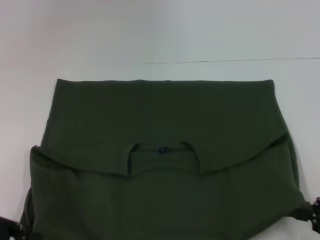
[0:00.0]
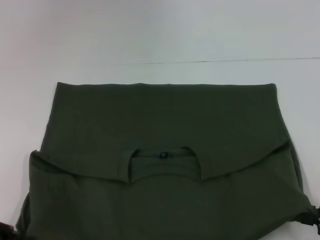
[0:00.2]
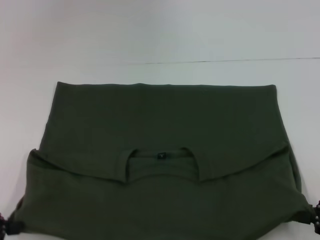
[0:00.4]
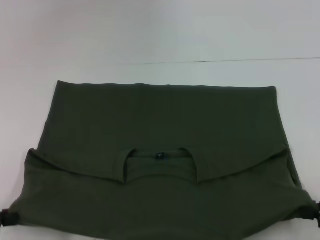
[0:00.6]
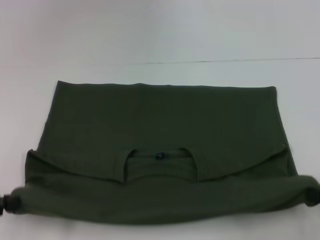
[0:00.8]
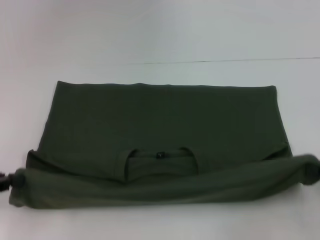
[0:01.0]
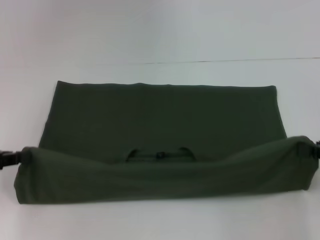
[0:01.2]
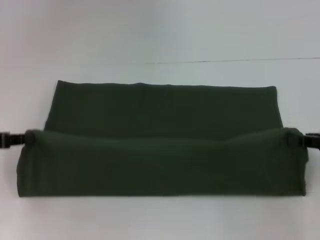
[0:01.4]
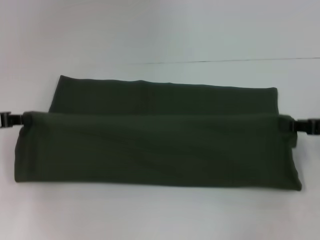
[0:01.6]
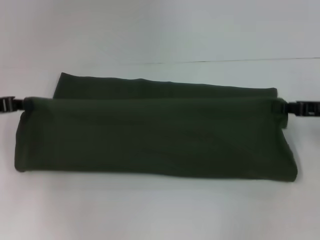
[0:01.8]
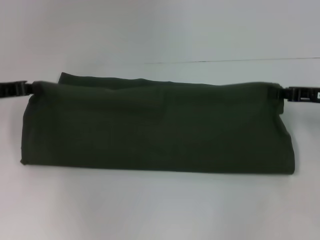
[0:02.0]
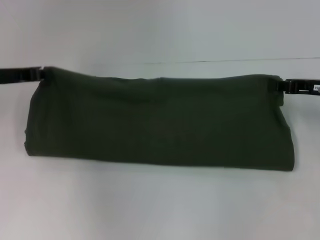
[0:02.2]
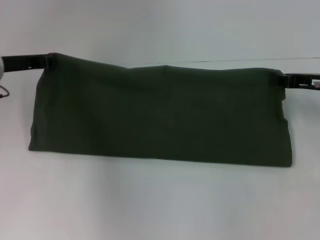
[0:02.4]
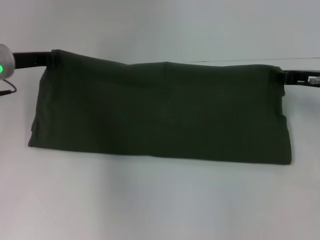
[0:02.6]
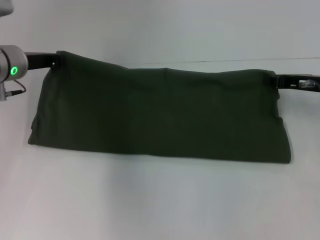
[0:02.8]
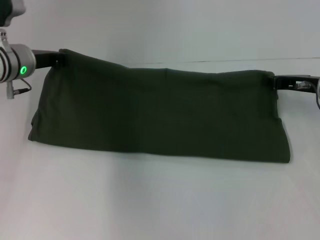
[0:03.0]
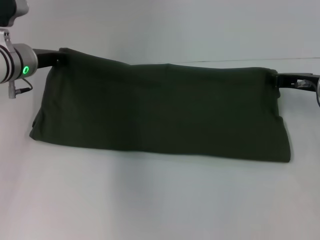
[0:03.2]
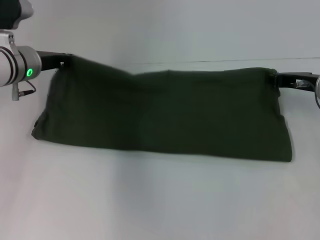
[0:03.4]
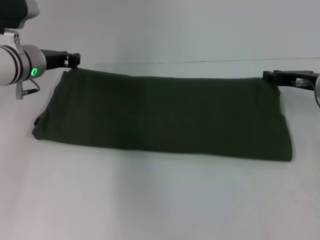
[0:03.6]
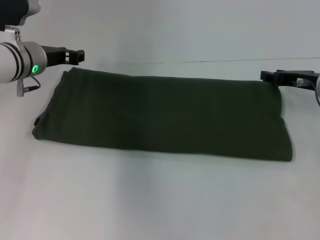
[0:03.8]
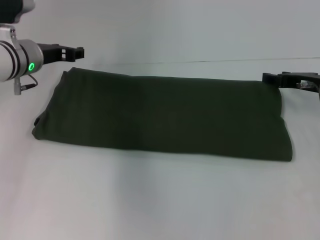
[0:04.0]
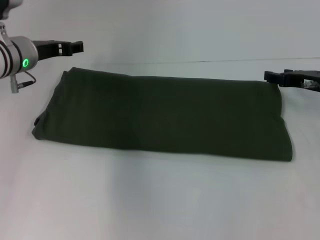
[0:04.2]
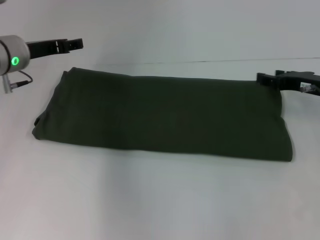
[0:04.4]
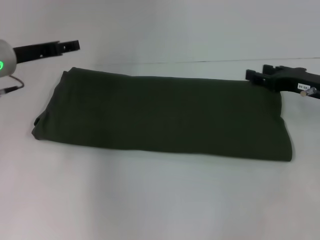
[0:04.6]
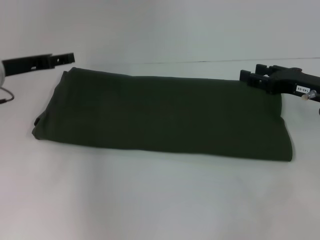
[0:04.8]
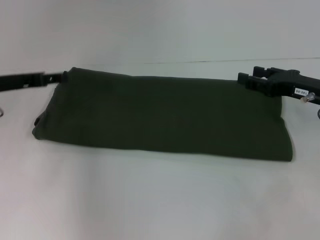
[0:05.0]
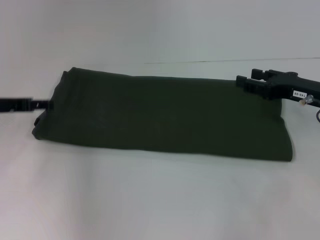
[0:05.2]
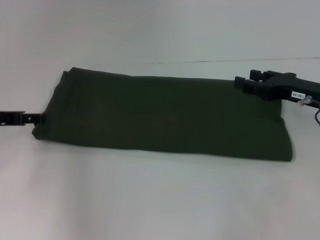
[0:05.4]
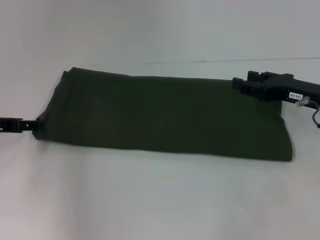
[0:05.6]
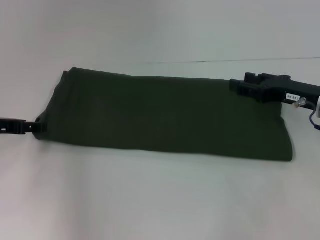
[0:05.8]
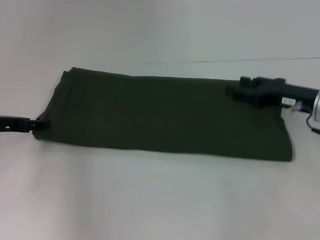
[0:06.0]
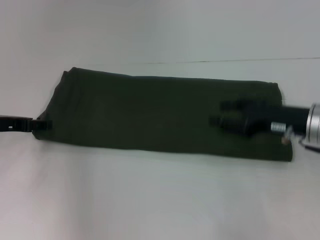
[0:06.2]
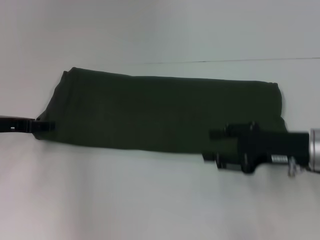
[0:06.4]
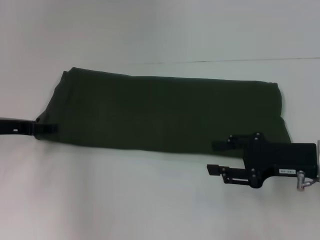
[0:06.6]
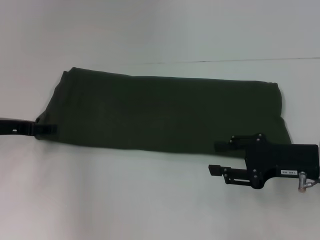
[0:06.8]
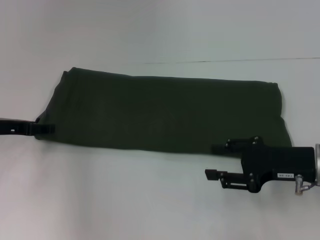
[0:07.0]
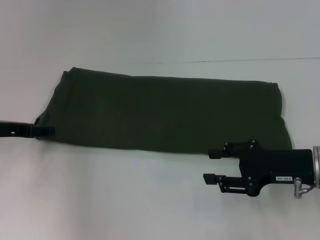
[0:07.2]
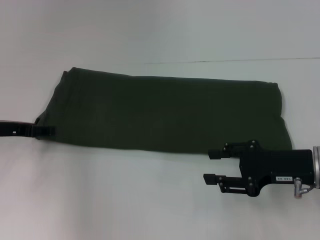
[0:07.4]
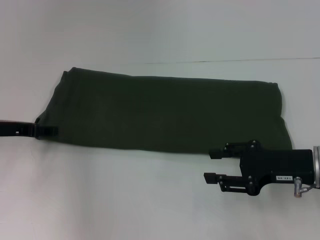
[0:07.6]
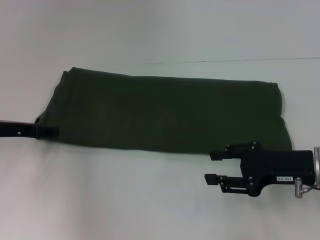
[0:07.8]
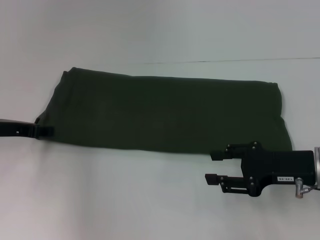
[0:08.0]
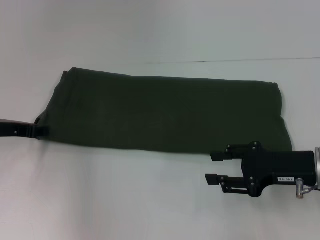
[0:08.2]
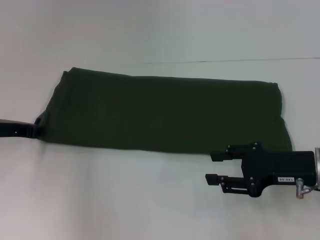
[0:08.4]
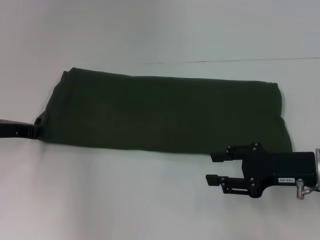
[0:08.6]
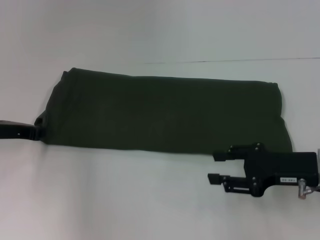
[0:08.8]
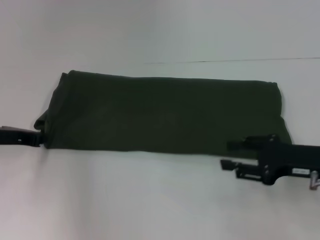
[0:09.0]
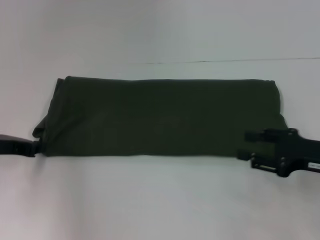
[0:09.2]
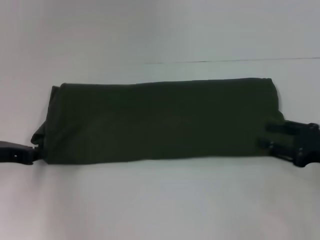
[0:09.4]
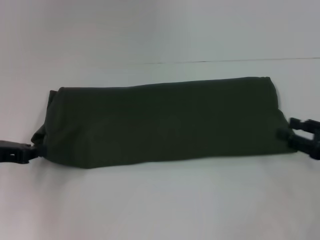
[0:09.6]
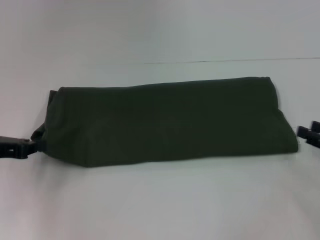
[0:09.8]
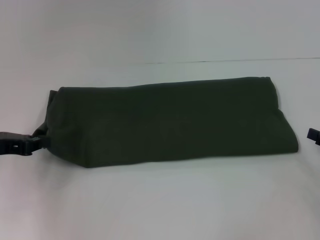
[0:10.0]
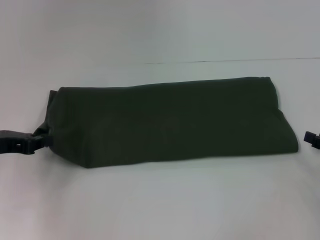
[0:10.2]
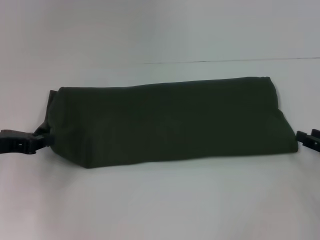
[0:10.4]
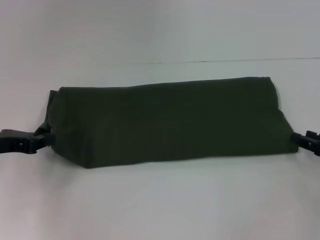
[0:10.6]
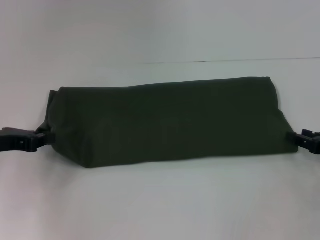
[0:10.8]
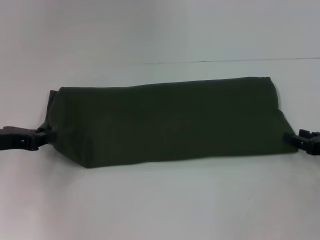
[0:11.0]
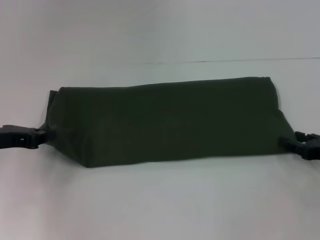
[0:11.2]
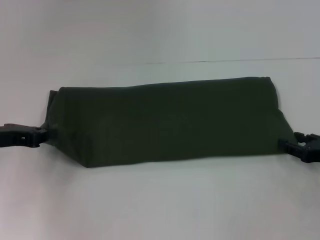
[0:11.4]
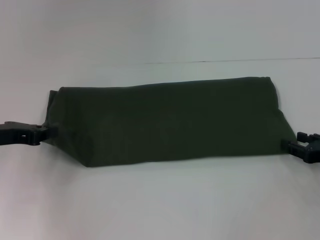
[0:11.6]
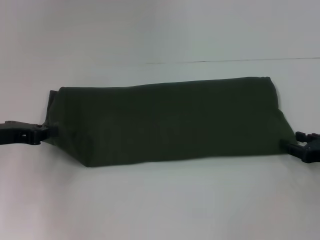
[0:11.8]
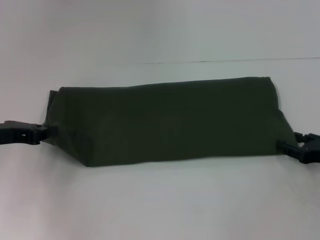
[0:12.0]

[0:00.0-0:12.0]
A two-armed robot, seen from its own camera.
Step, 0:00.6 to 0:03.6: Fold the clothes with your right hand.
0:00.0 to 0:01.6: Both grippers move forward, some 15 cm.
0:01.6 to 0:03.0: The right gripper is displaced forward and to the left by some 10 cm, while the left gripper travels forward and to the right by approximately 15 cm.
0:03.0 to 0:04.4: The right gripper opens, while the left gripper opens up.
0:04.4 to 0:06.0: The left gripper travels backward and to the left by approximately 10 cm.
0:06.0 to 0:07.6: The right gripper is displaced backward by roughly 5 cm.
0:07.6 to 0:09.0: The left gripper closes up.
0:09.0 to 0:10.4: The right gripper shifts approximately 10 cm to the right.
0:10.4 to 0:12.0: The grippers move only a little.

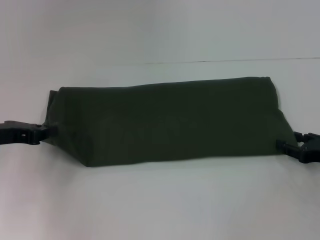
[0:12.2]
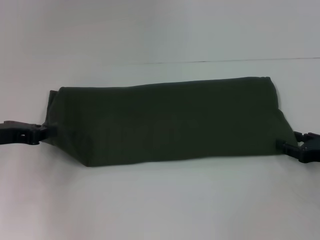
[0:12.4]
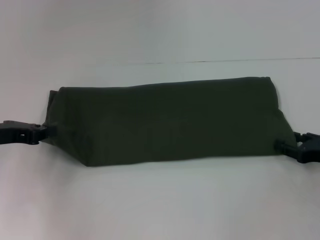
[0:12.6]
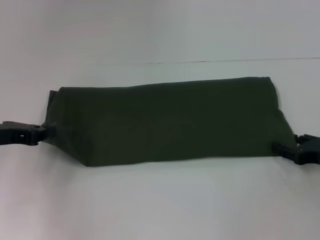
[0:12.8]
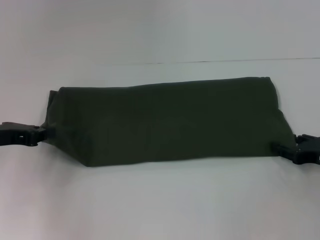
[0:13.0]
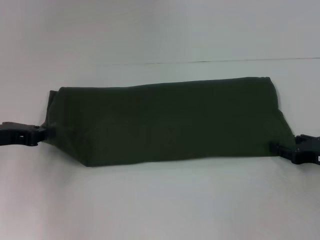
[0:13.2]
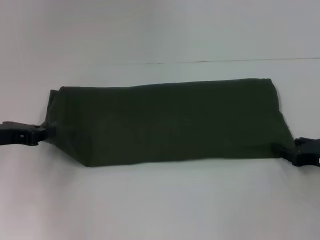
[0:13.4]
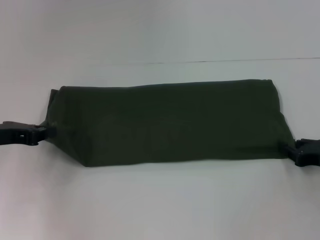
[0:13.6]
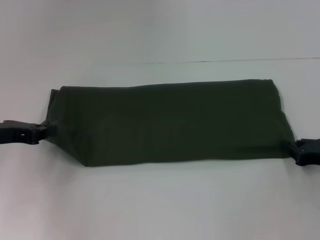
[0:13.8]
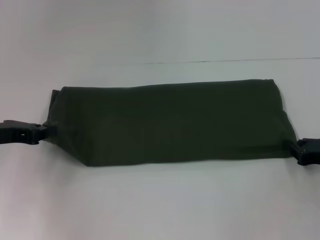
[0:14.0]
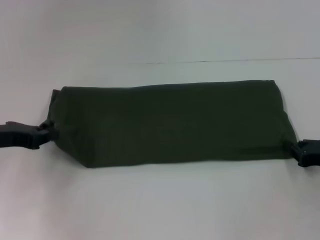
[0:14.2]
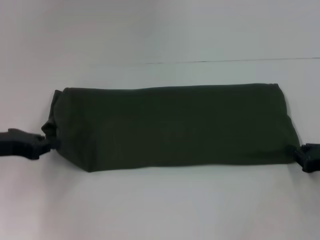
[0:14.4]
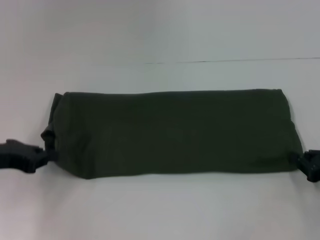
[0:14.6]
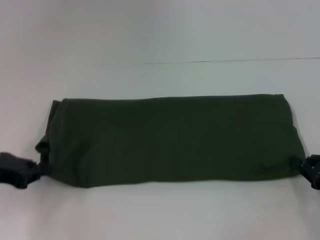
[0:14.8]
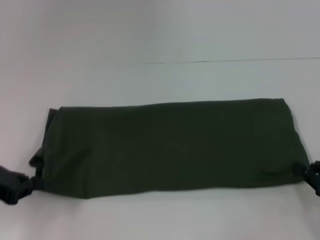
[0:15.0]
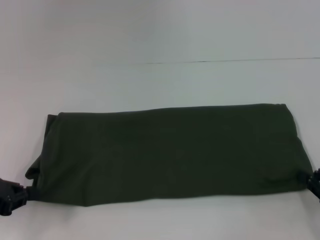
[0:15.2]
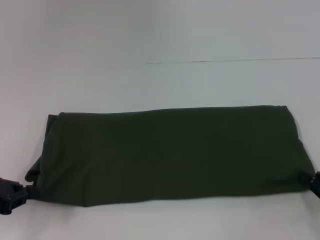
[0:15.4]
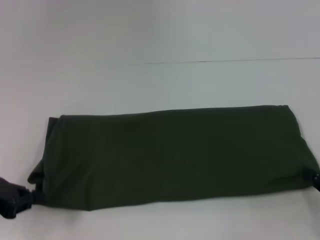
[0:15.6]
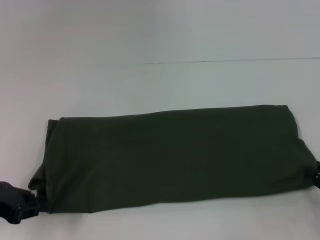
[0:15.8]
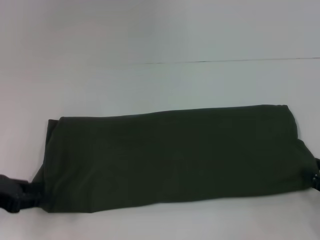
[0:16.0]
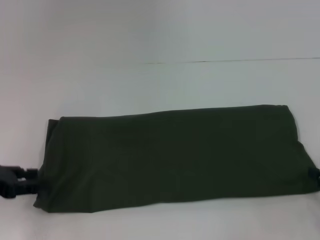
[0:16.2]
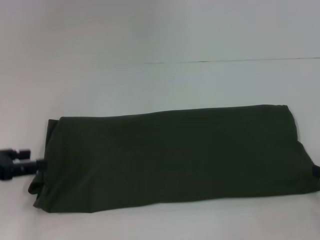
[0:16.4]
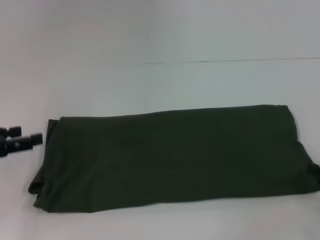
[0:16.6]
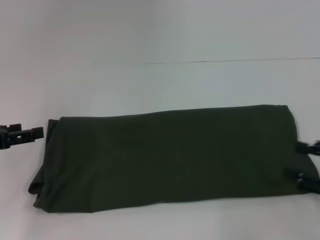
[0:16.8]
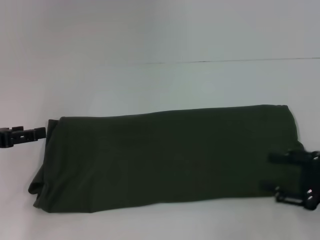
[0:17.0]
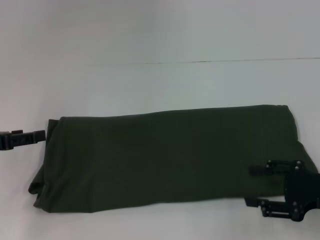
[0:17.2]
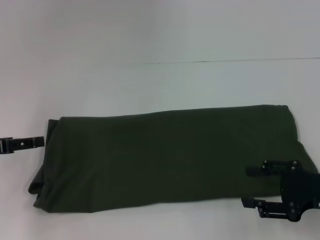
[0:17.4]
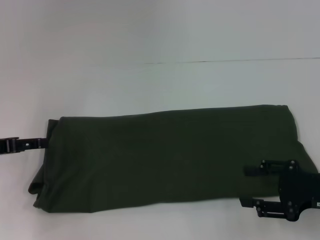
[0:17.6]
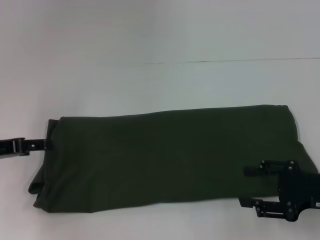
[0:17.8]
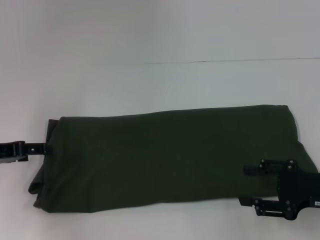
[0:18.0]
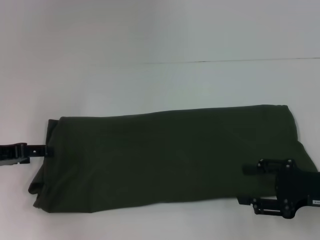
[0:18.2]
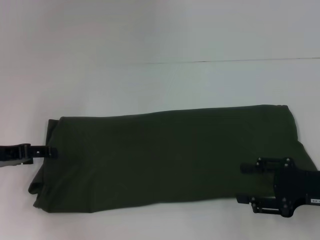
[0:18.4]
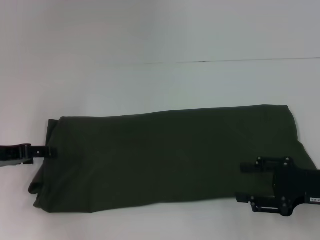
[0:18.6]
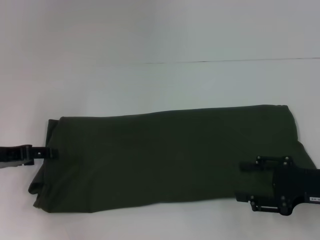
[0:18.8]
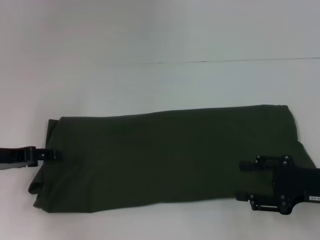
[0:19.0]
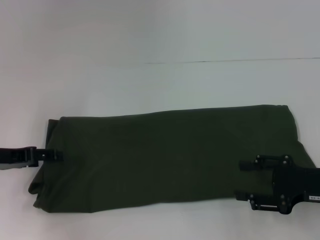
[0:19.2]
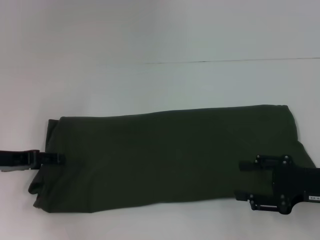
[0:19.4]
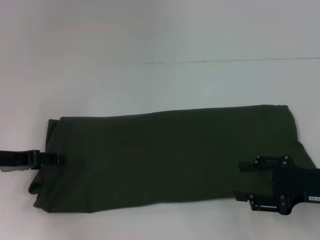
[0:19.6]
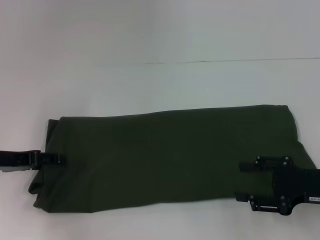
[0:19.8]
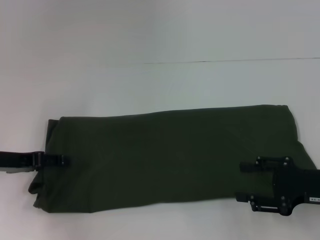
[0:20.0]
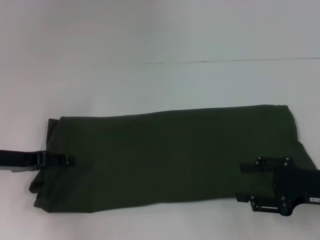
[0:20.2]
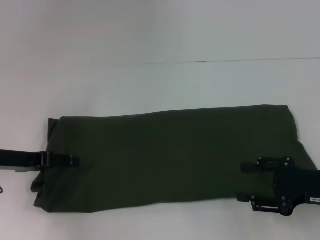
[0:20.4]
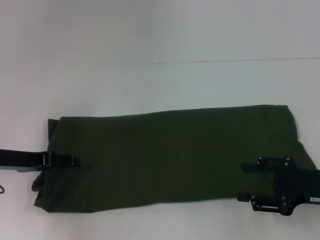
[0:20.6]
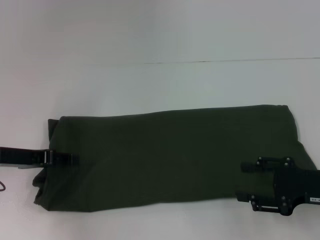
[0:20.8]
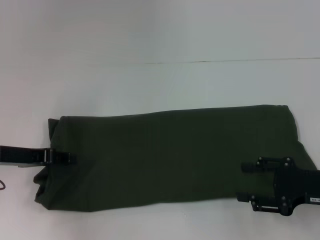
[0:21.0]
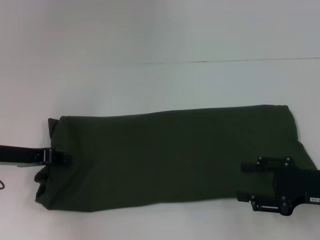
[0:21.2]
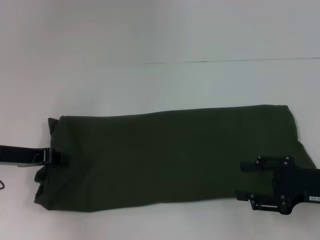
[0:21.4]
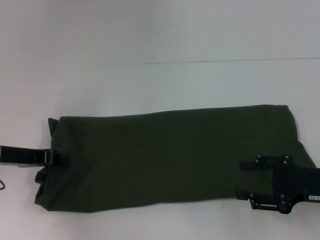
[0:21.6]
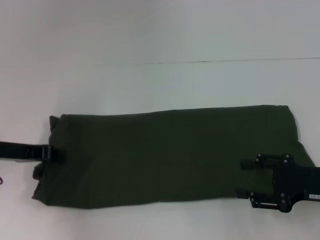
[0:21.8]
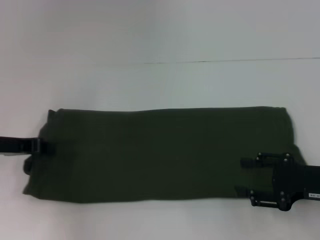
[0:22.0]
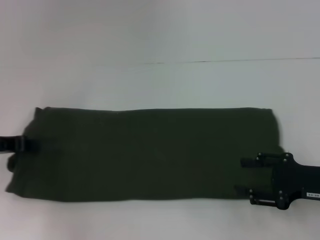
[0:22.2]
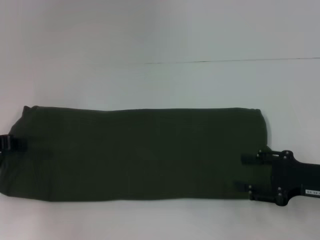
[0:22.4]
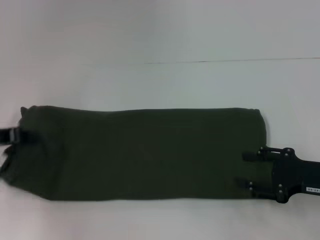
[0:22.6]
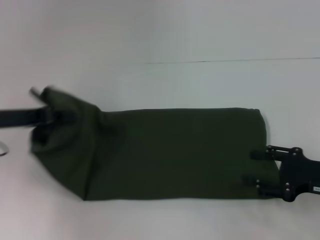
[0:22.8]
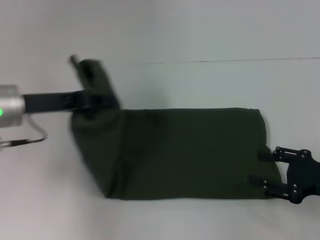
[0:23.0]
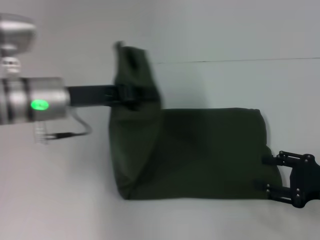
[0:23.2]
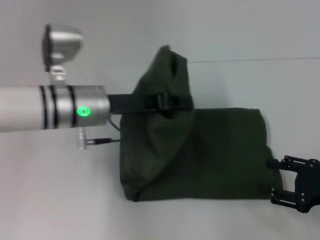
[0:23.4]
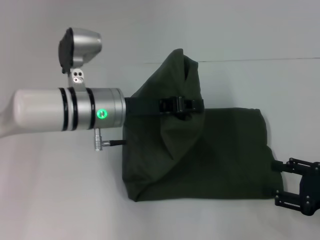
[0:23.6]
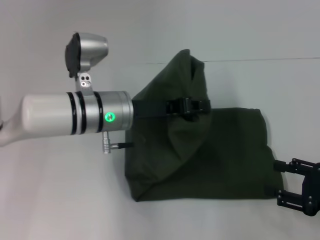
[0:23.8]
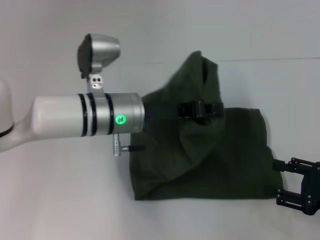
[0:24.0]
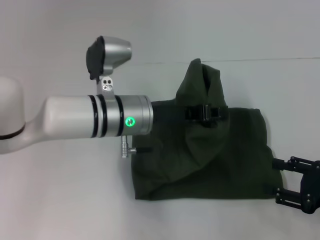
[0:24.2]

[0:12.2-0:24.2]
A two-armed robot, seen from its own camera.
0:12.2 to 0:13.8: Both grippers stay put.
0:13.8 to 0:15.2: The two grippers go roughly 5 cm backward.
0:15.2 to 0:16.6: The left gripper opens. The right gripper opens its fingers.
0:16.6 to 0:18.2: The right gripper heads to the left, covering roughly 10 cm.
0:18.2 to 0:19.8: There are only small adjustments of the grippers.
0:19.8 to 0:21.2: The left gripper closes its fingers.
0:21.2 to 0:22.6: The left gripper closes its fingers.
0:22.6 to 0:24.2: The left gripper moves to the right, approximately 25 cm.
